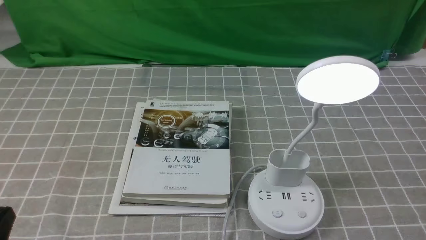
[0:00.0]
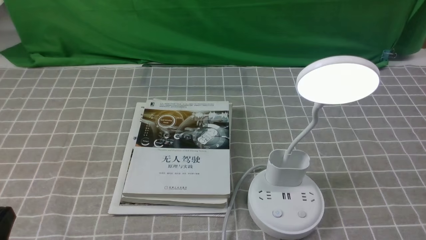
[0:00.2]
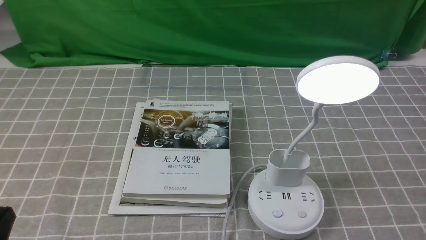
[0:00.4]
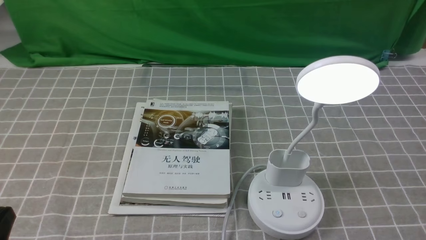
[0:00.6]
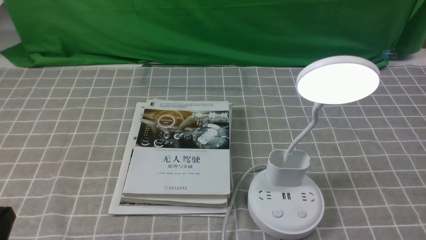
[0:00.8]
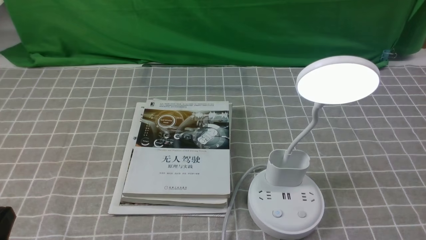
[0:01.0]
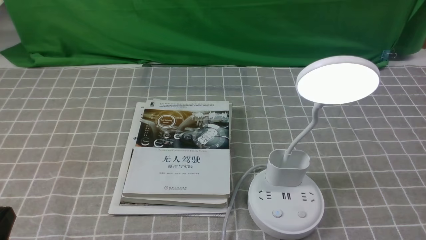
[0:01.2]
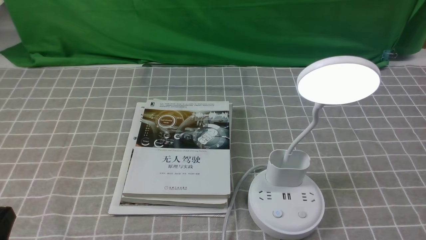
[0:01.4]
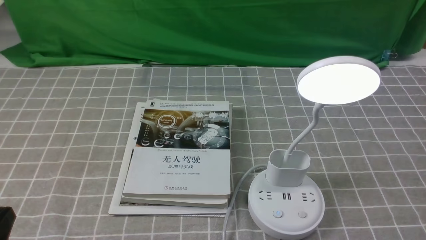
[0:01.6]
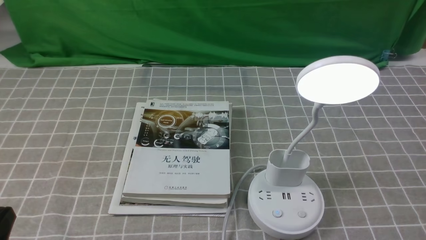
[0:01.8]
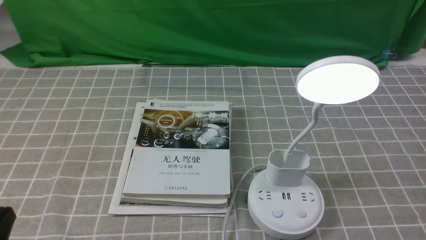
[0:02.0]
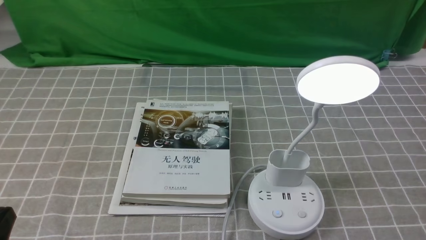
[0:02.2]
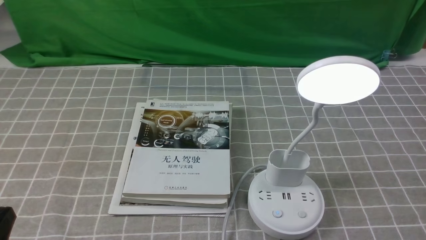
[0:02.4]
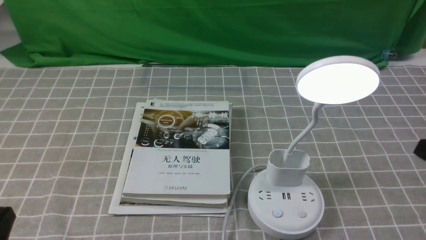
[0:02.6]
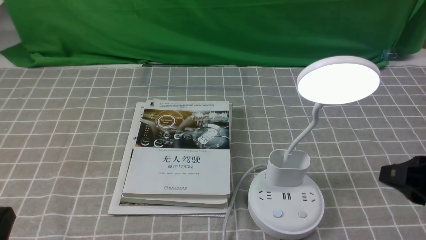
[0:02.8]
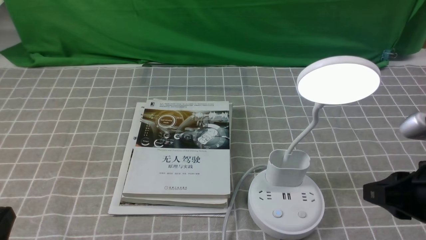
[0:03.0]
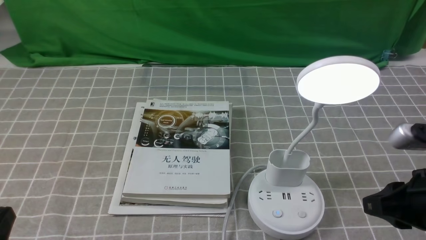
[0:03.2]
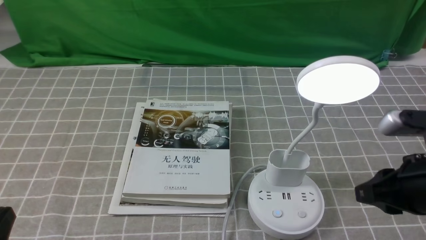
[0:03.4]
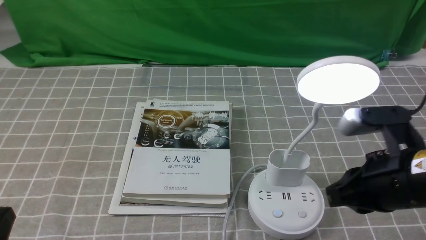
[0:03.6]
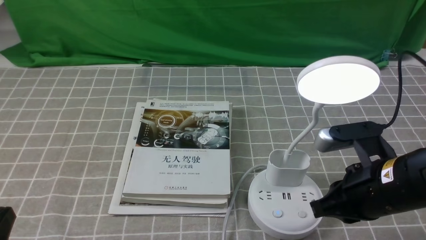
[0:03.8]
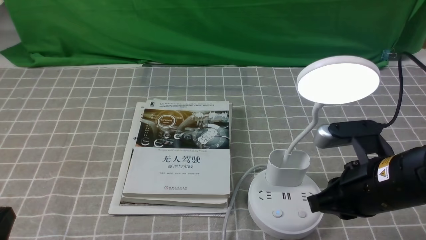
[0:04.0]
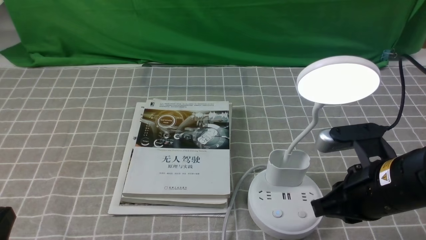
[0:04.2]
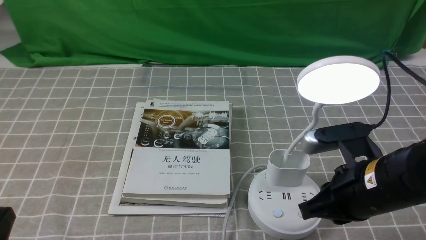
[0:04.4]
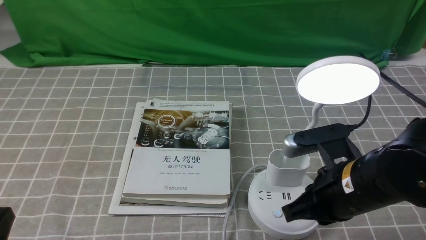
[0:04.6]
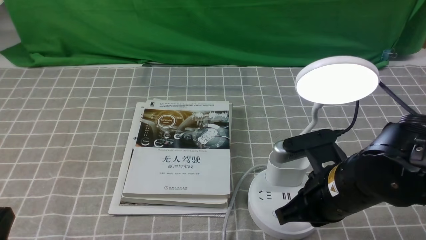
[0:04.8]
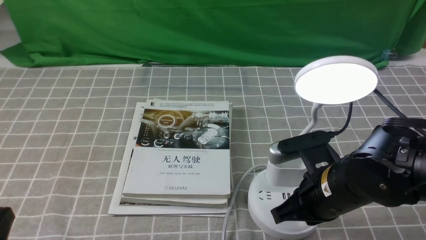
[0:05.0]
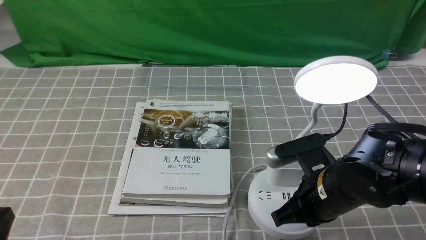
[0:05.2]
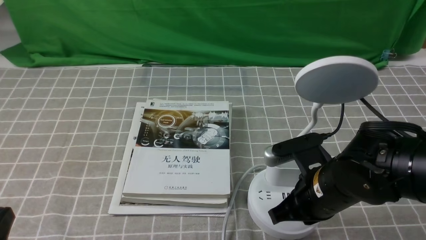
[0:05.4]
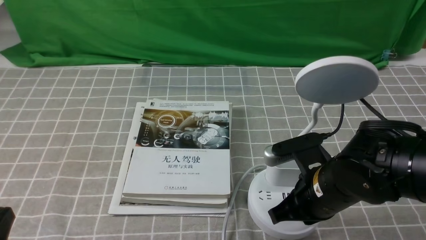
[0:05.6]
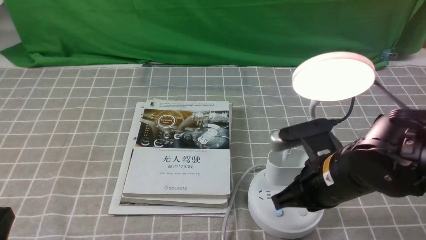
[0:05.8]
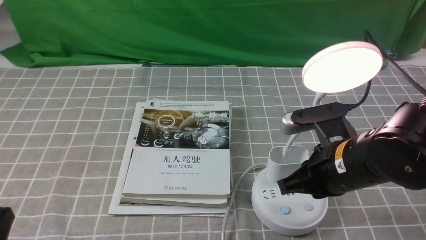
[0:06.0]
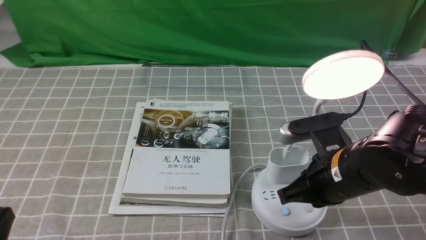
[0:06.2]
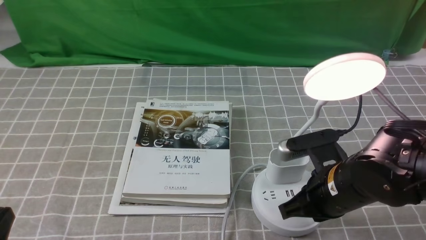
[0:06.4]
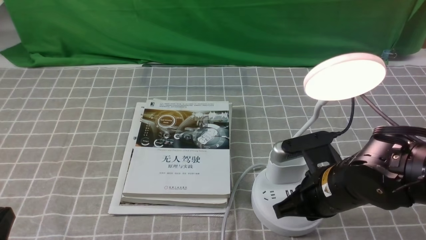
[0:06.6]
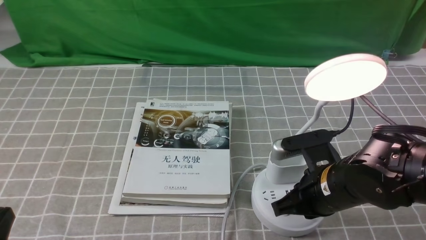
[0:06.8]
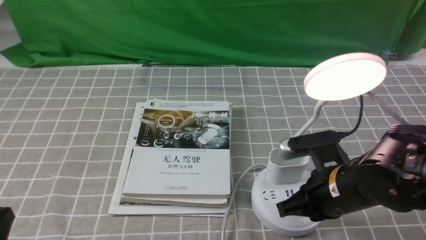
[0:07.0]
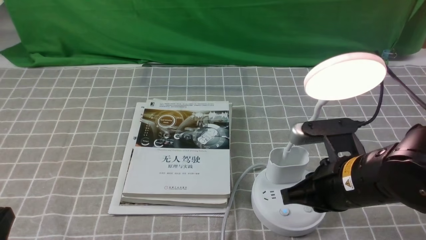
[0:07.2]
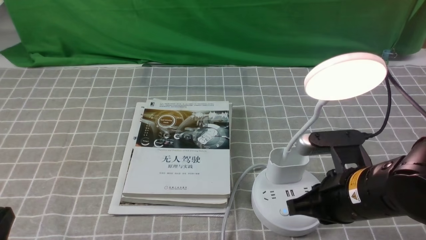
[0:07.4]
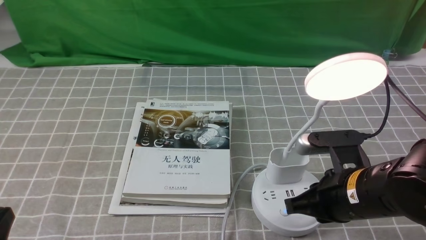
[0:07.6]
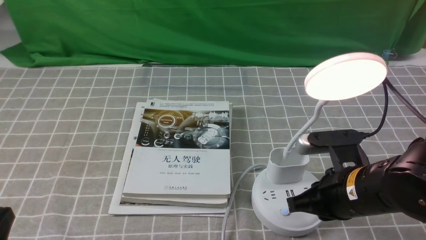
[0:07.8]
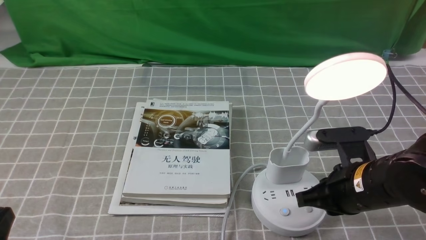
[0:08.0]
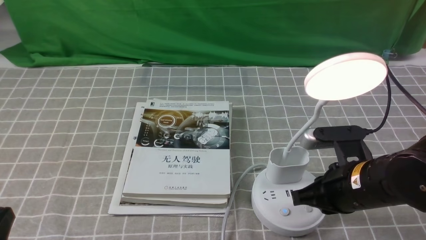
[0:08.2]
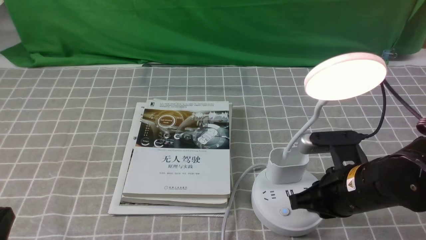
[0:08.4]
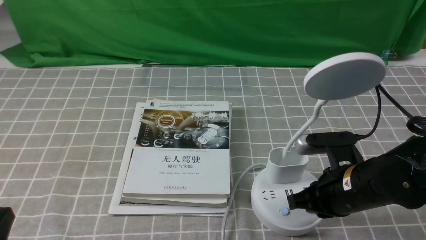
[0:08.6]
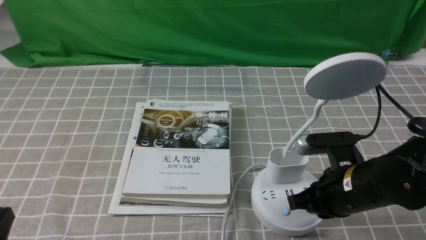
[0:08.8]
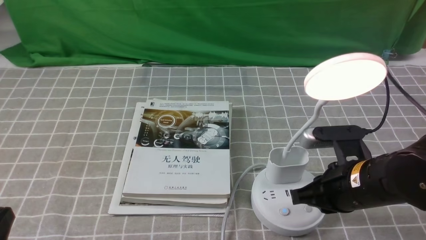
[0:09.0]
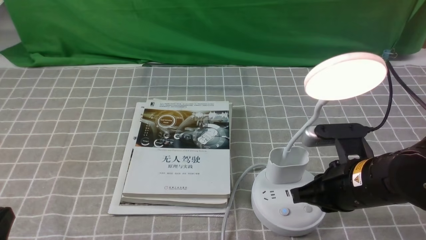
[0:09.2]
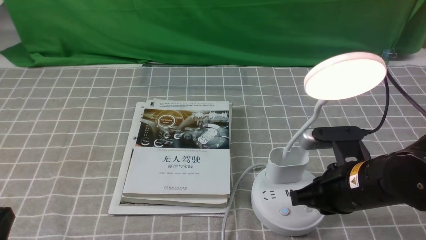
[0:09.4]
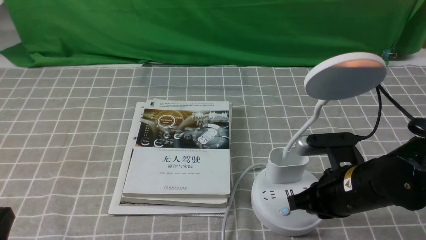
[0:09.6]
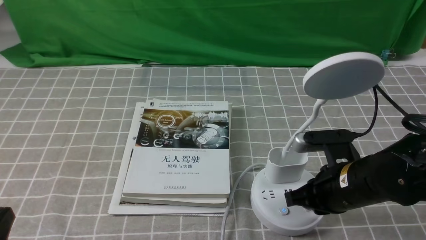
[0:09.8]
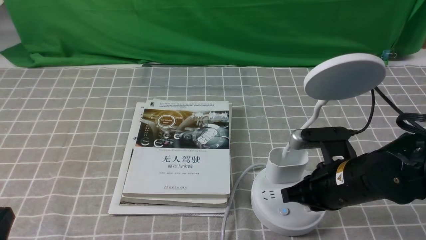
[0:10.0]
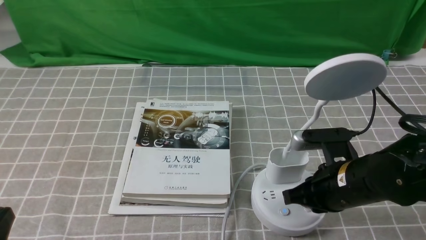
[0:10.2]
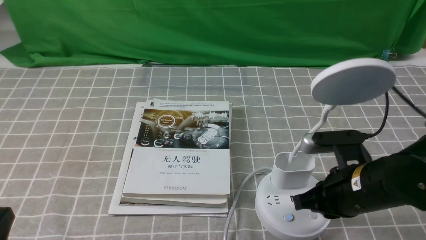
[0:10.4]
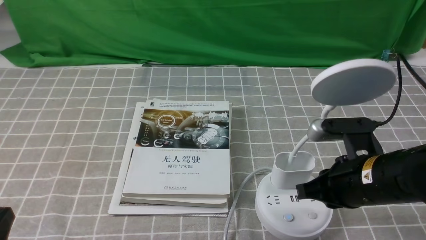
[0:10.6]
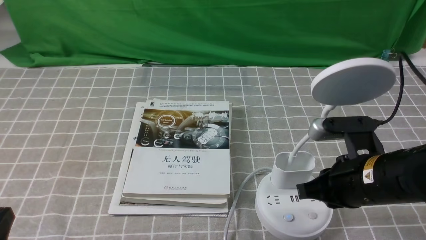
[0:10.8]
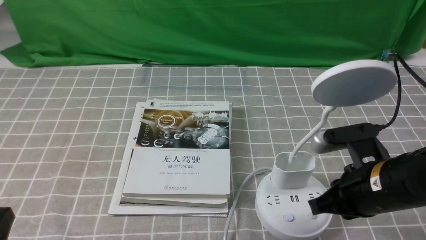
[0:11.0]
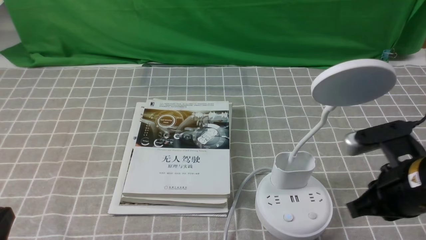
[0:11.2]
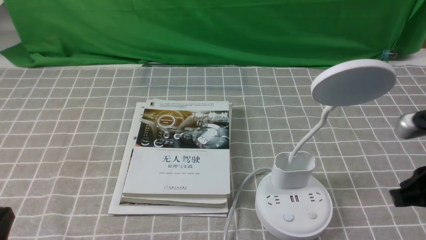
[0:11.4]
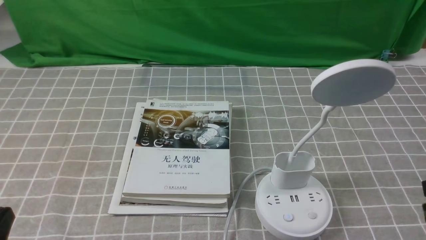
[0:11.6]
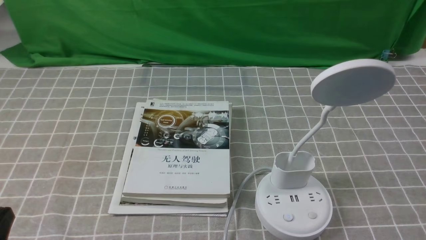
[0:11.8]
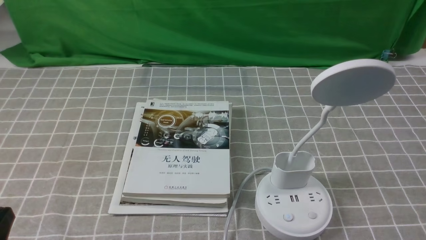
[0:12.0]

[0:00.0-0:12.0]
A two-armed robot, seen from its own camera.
Task of the whole recording: turn off the desk lamp on the grey coffee tablecloth by hand.
Step, 0:00.0 to 0:10.4: use the right arm to press the button switch on the lamp holder.
0:01.6 to 0:03.0: The right gripper moves forward and to the left, approximately 15 cm, and closes its fingers.
0:03.0 to 0:04.4: The right gripper goes about 10 cm to the left, and closes up.
0:04.4 to 0:09.0: There are only small adjustments of the grippers.
0:09.0 to 0:10.4: The grippers move only a little.
0:10.4 to 0:12.0: The right gripper shifts approximately 20 cm backward, to the right and upward.
